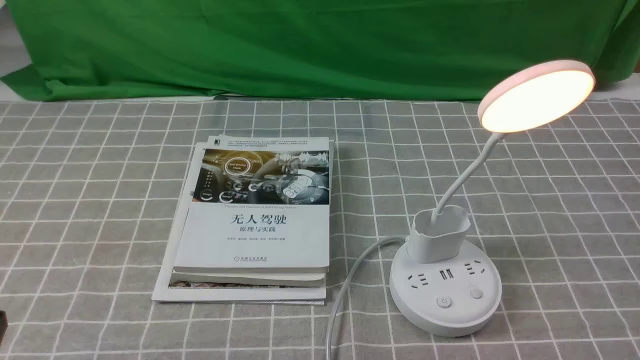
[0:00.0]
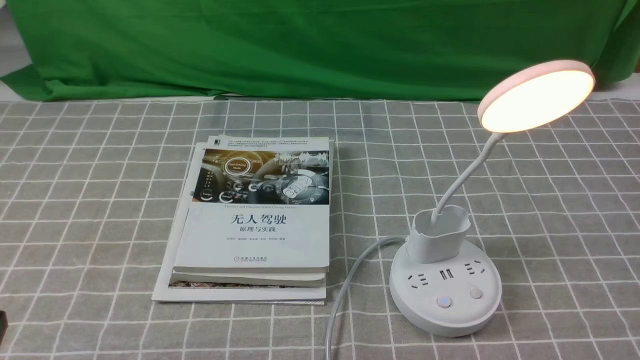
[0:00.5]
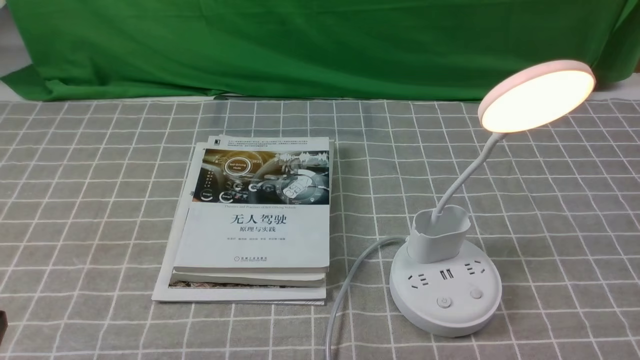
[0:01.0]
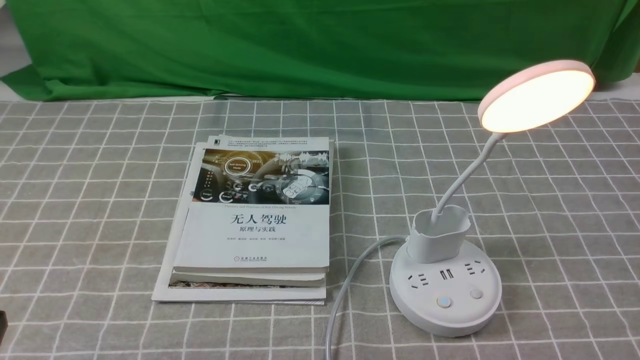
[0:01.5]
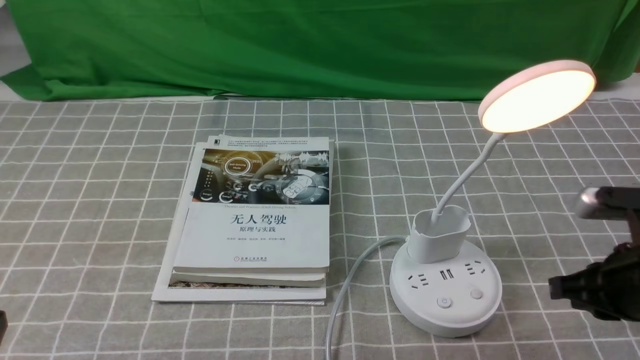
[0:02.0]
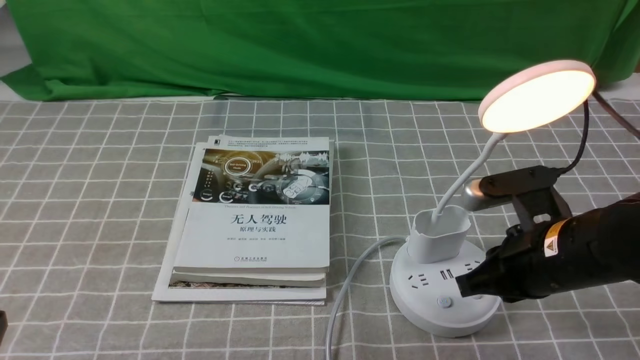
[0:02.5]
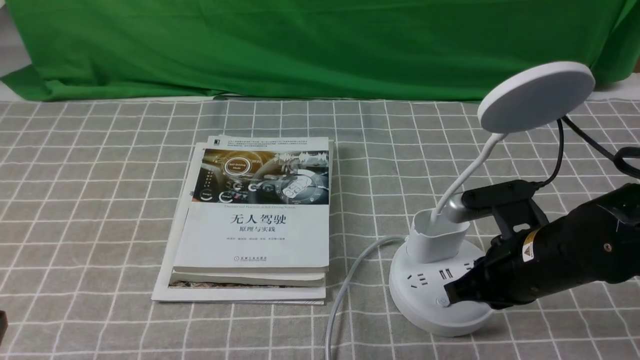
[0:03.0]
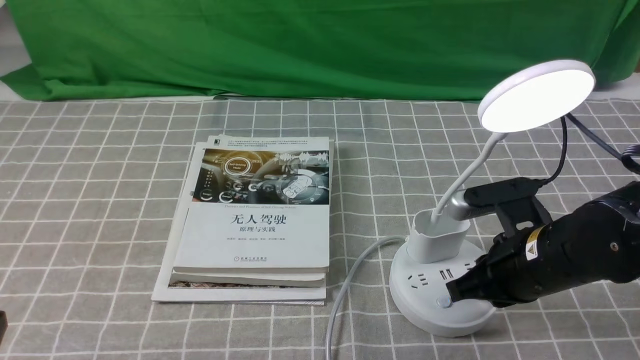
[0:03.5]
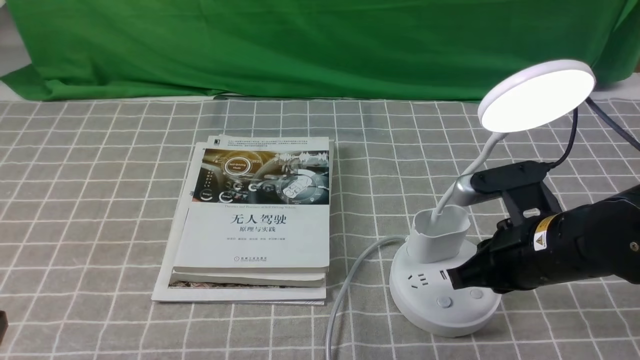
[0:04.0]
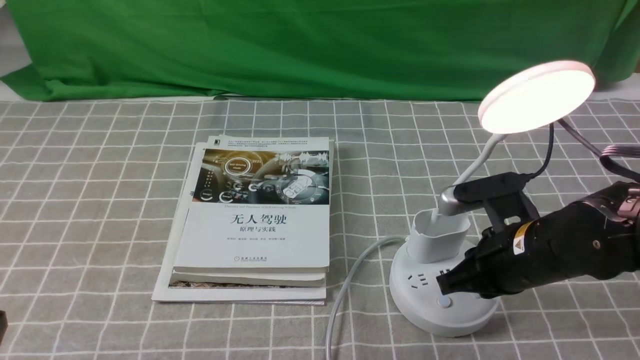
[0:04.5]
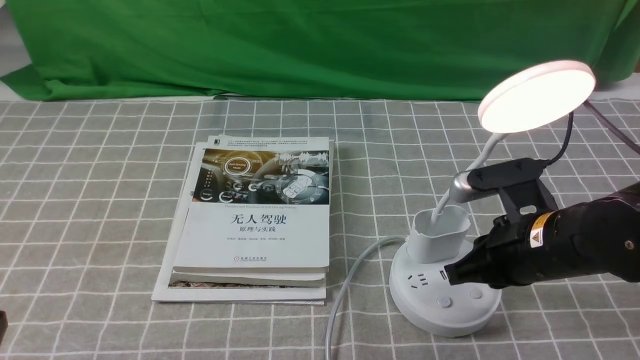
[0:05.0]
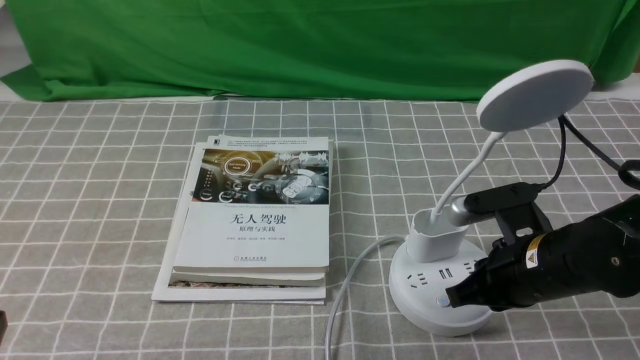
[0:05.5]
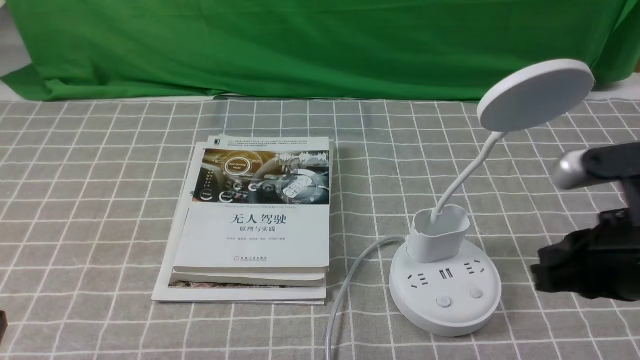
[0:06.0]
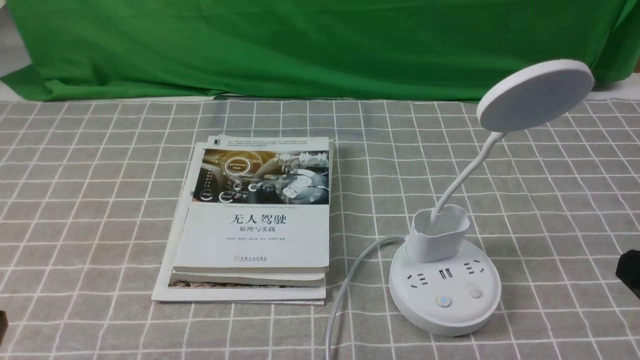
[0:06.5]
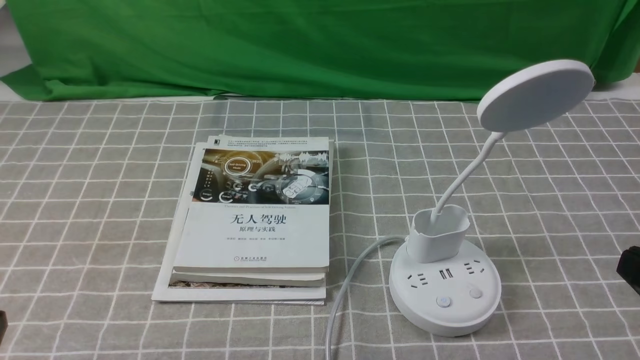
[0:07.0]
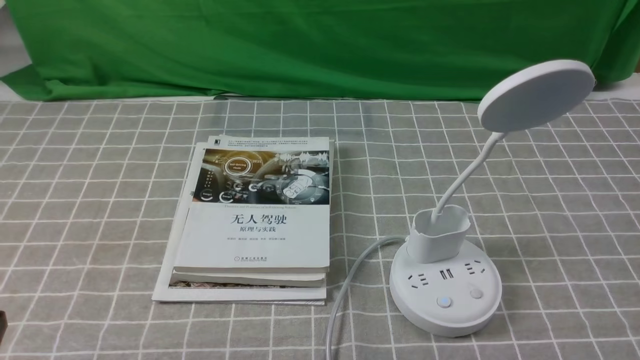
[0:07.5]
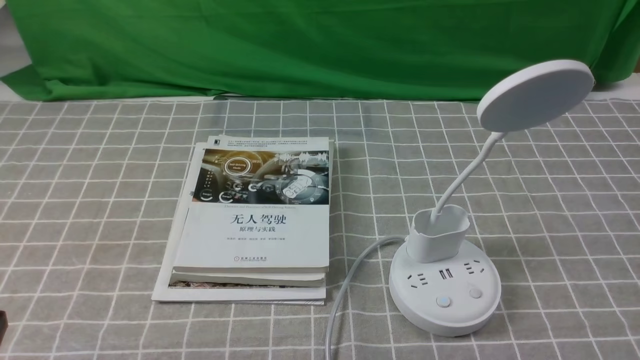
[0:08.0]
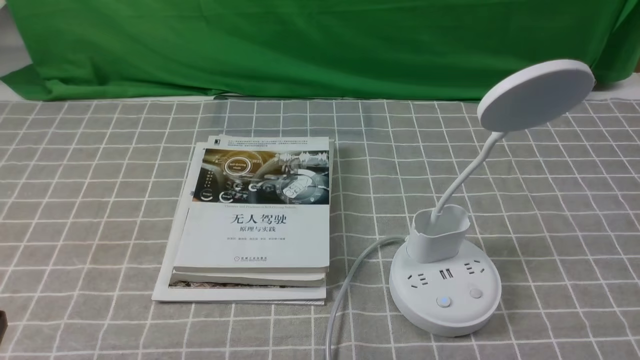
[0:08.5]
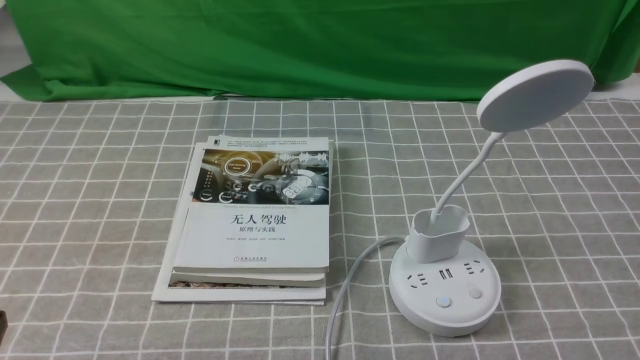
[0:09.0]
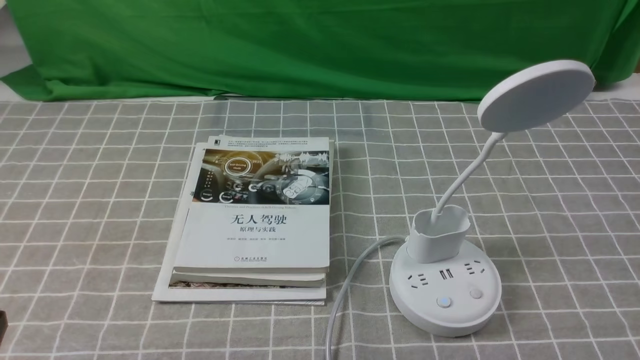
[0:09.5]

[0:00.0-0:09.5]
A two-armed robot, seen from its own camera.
Task of the whole recording: turn off the desk lamp on the grey coffee tablecloth by hand.
Step, 0:00.0 to 0:05.5: use the right arm to press the button switch on the lamp holder.
0:00.0 to 0:02.0: The right gripper moves forward, about 15 cm.
0:02.0 to 0:04.0: The right gripper heads to the left, covering roughly 10 cm.
0:04.0 to 0:05.5: The right gripper opens up.
0:05.5 to 0:07.5: The right gripper moves backward, to the right and upward, about 20 cm, and closes.
